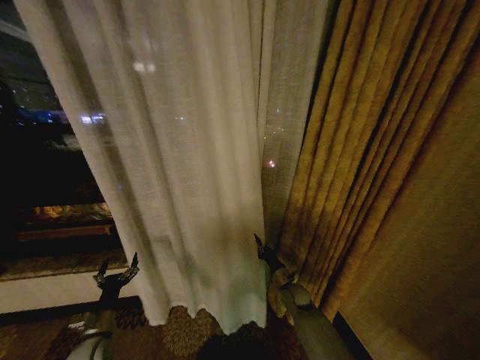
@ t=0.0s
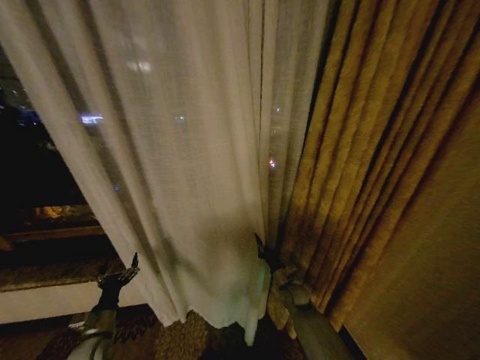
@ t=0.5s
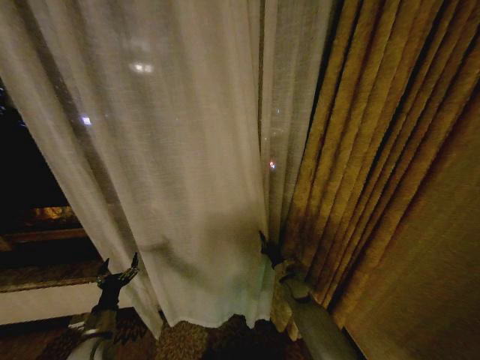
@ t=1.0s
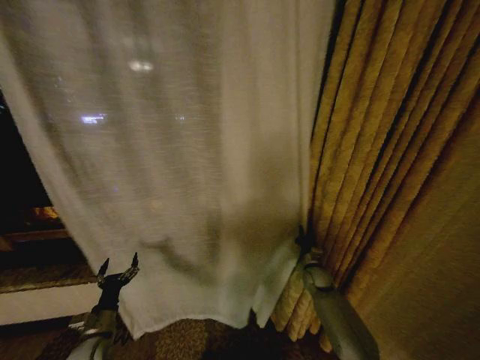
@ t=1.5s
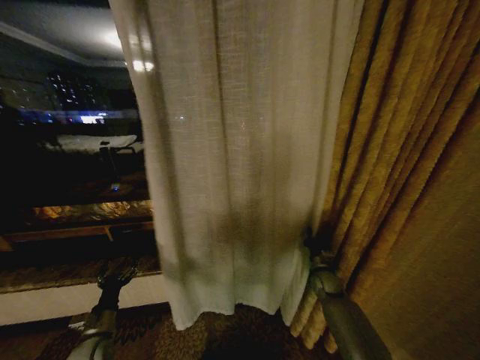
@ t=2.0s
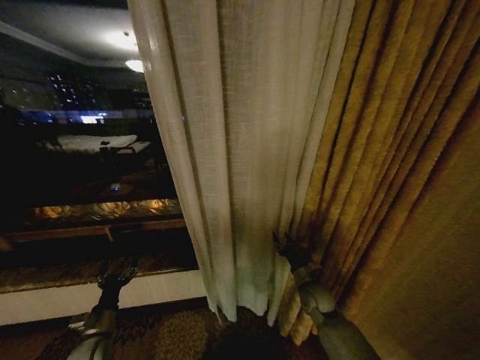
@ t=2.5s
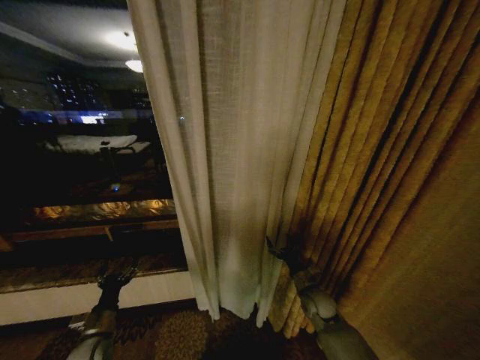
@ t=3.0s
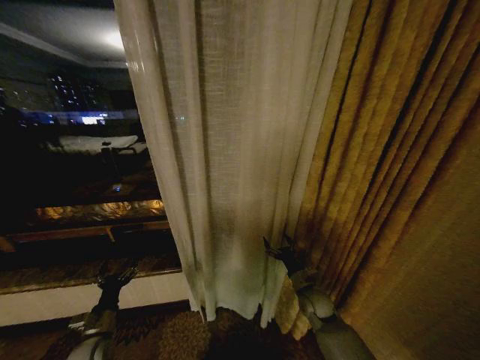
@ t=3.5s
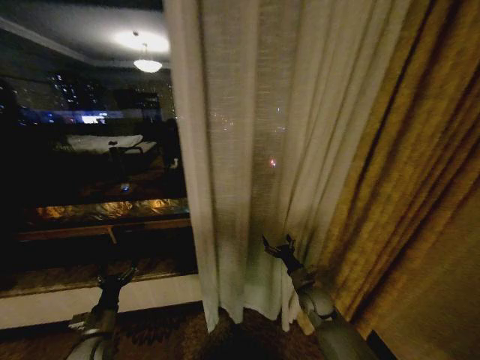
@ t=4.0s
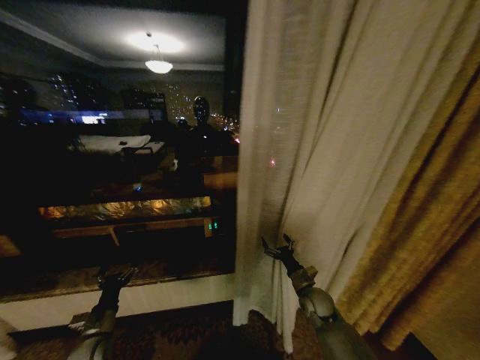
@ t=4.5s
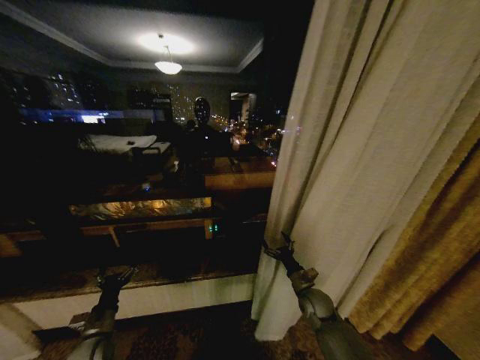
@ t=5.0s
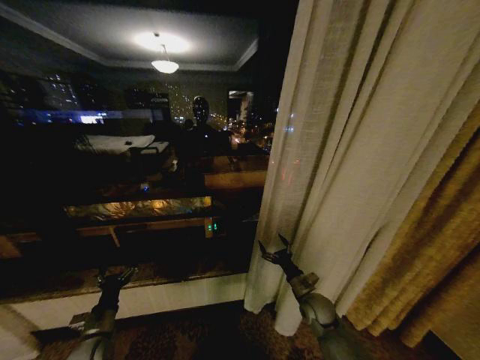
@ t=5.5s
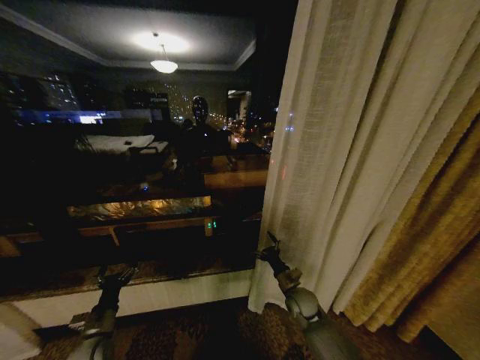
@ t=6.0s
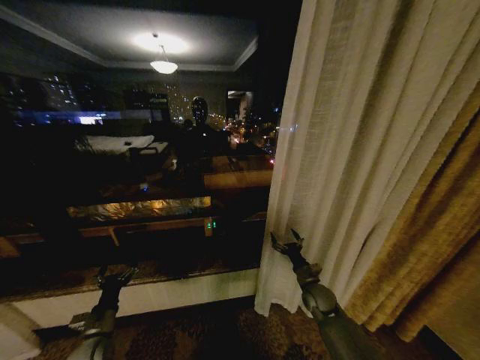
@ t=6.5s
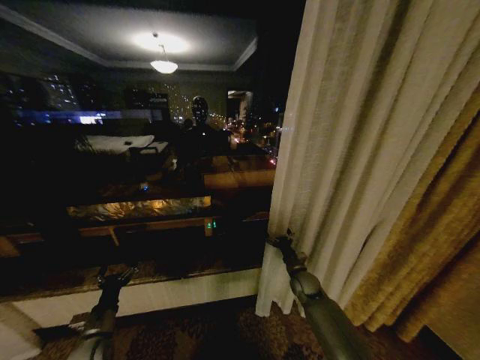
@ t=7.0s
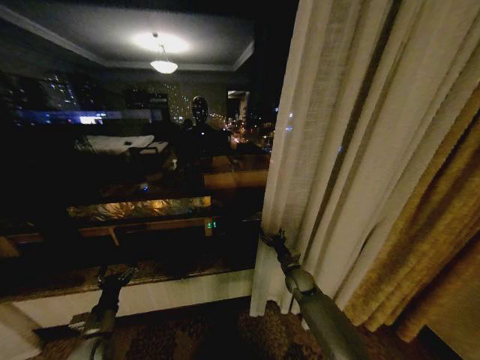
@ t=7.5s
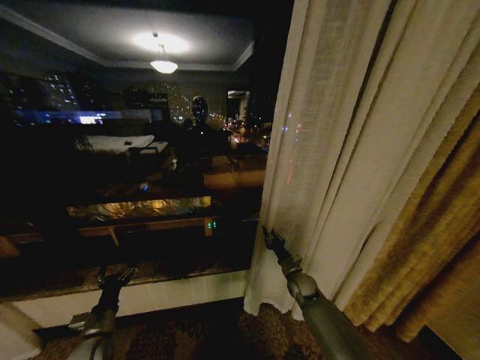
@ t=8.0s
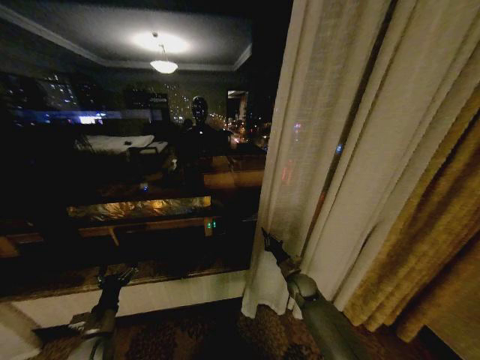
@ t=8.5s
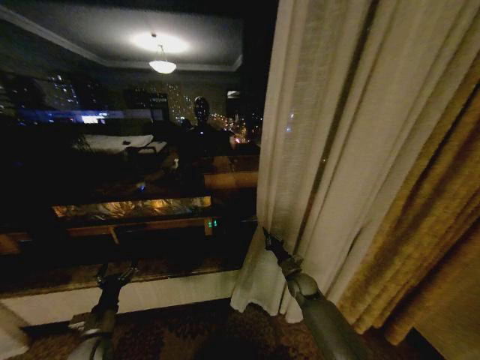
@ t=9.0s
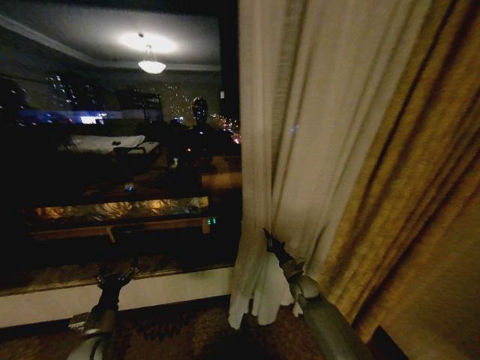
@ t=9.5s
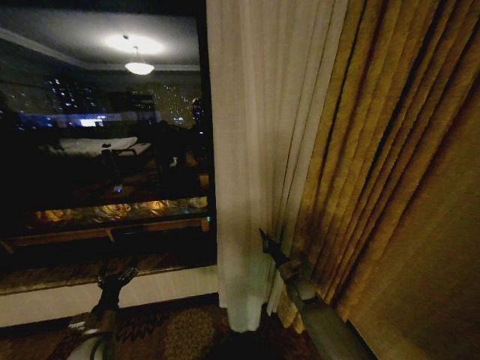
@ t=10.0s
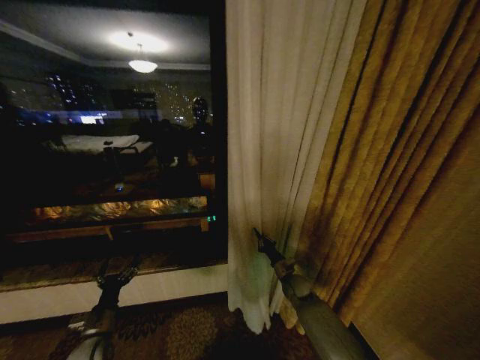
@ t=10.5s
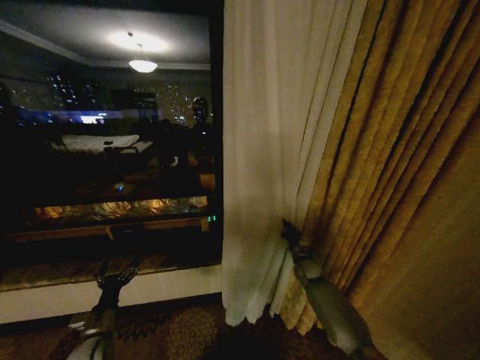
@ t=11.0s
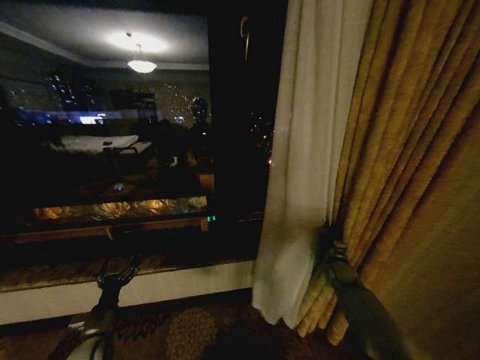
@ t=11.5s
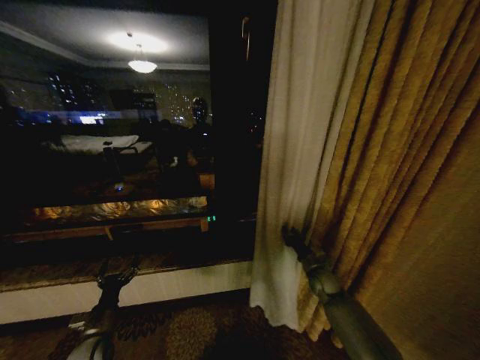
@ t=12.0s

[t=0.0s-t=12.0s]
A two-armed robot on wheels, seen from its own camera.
Task of the whole recording: Open the curtains by pulling them apart, changing their state from closed to fully open.
t=0.0s to t=2.0s: The right gripper goes some 10 cm to the right.
t=2.0s to t=4.0s: The right gripper heads to the left and backward, covering about 10 cm, and opens up.
t=6.0s to t=8.0s: The right gripper travels forward by approximately 5 cm, and closes its fingers.
t=10.0s to t=12.0s: The right gripper shifts approximately 10 cm to the right.

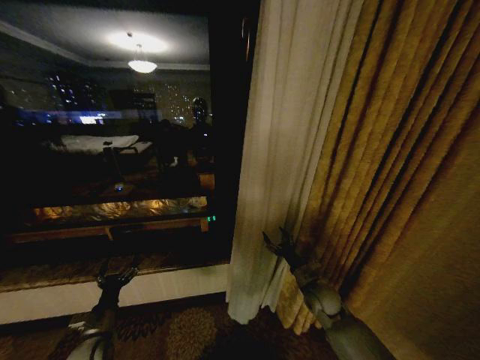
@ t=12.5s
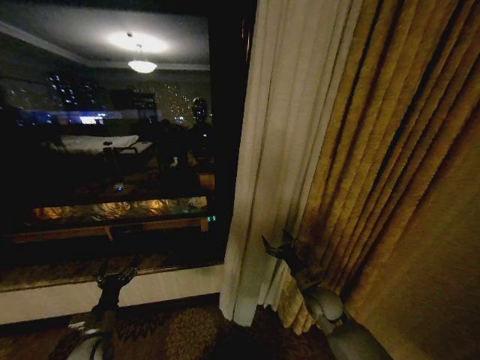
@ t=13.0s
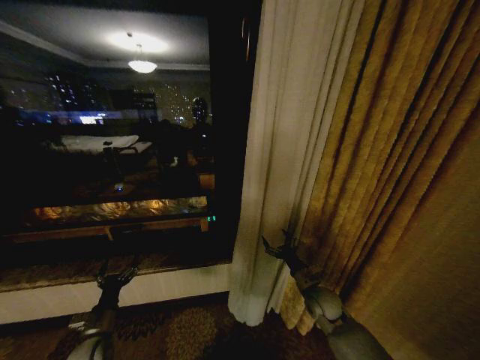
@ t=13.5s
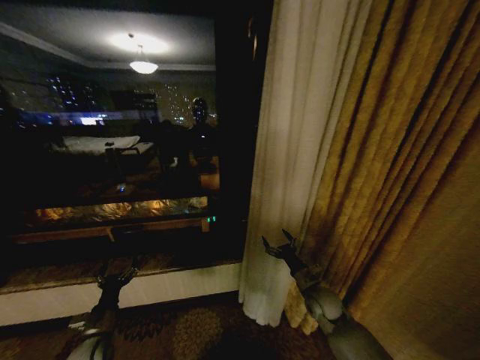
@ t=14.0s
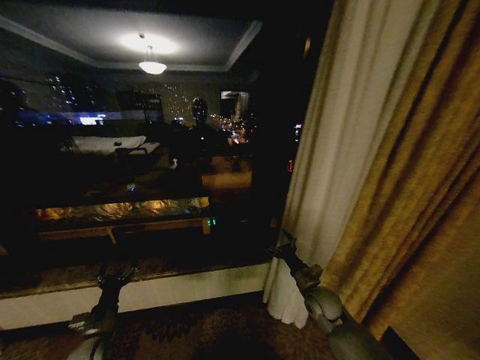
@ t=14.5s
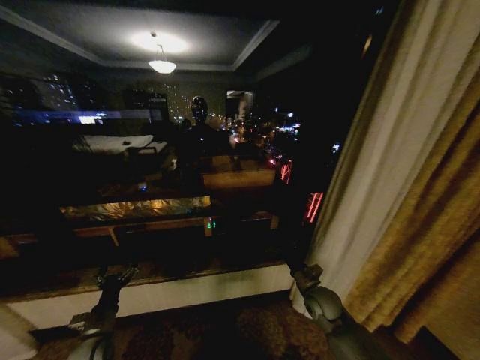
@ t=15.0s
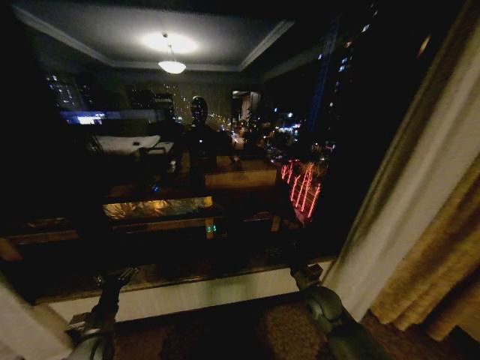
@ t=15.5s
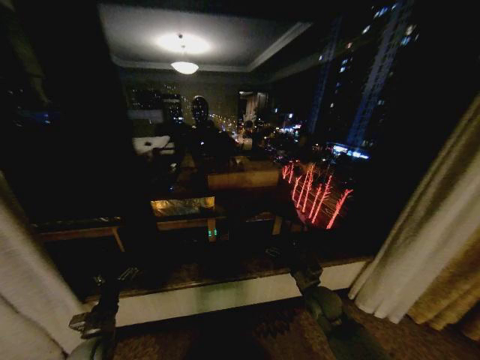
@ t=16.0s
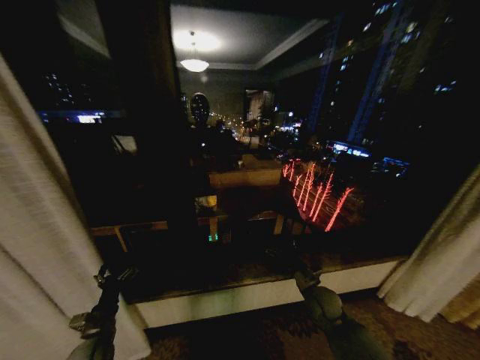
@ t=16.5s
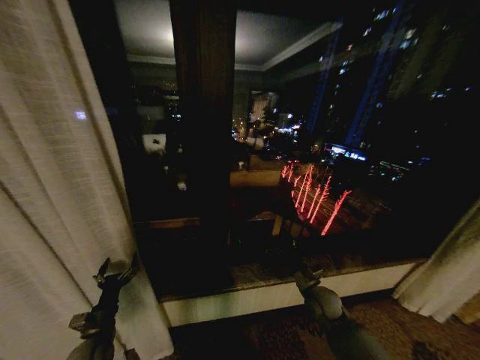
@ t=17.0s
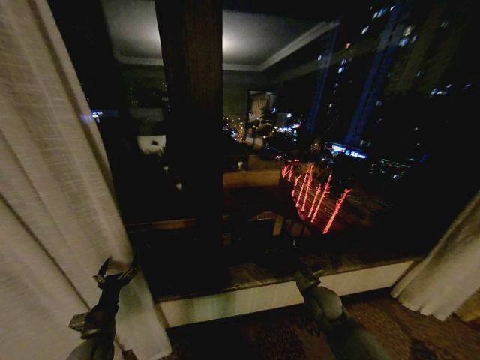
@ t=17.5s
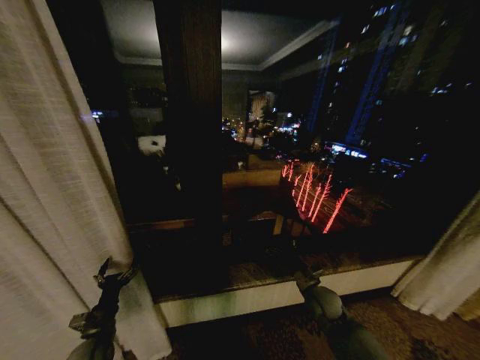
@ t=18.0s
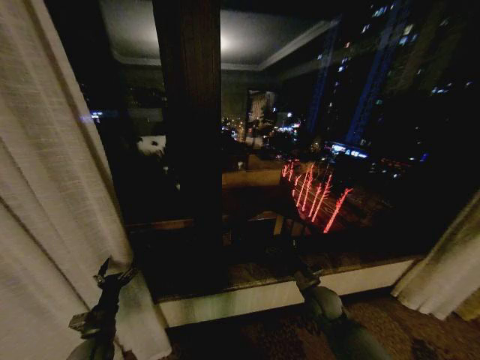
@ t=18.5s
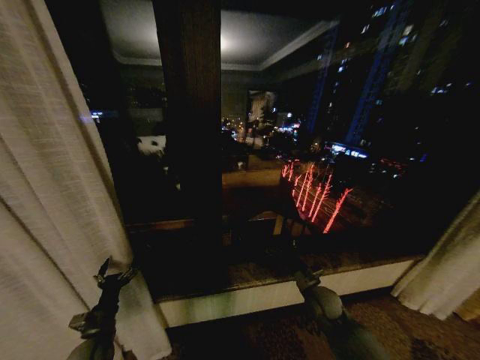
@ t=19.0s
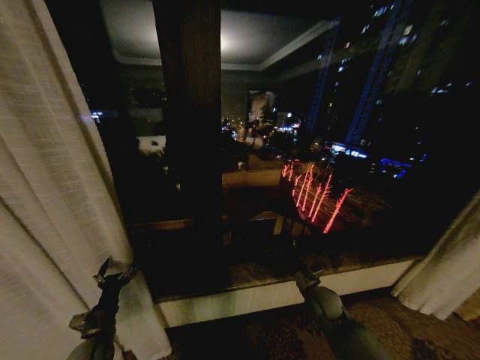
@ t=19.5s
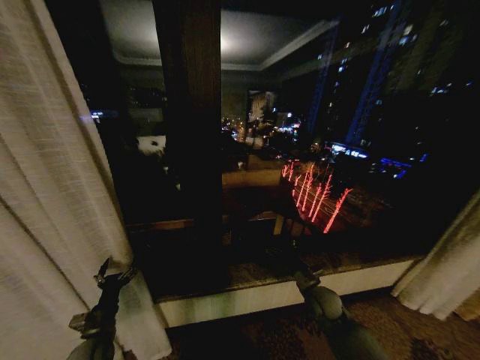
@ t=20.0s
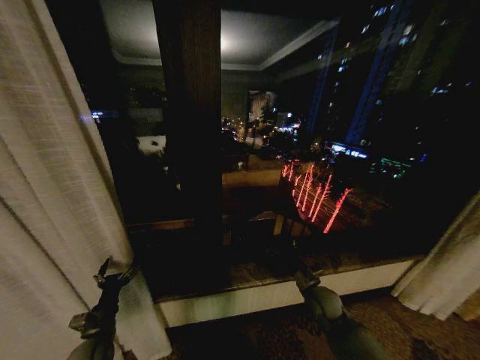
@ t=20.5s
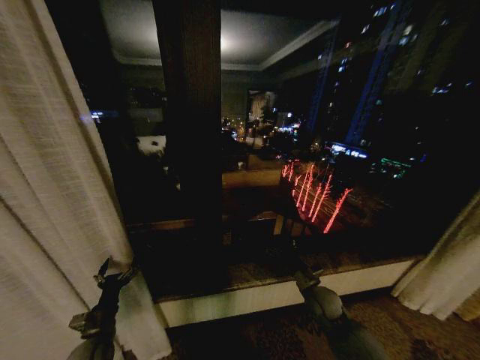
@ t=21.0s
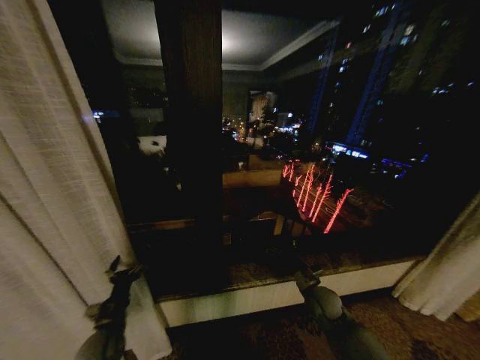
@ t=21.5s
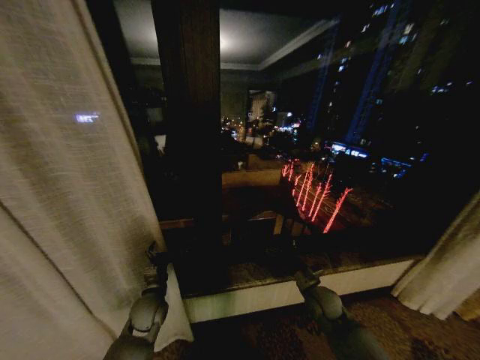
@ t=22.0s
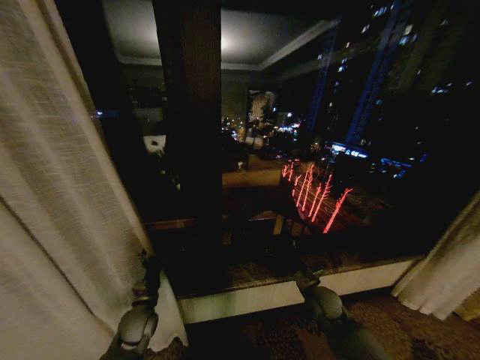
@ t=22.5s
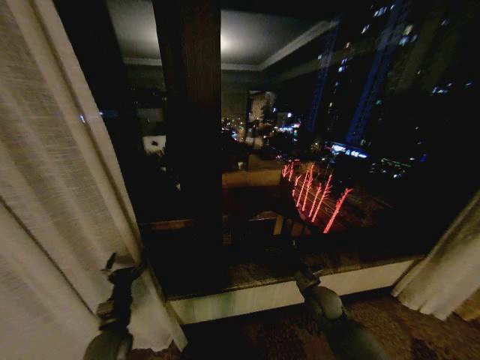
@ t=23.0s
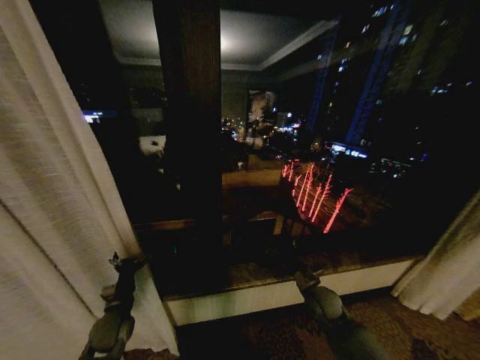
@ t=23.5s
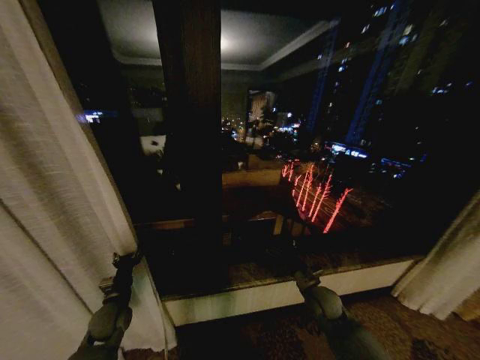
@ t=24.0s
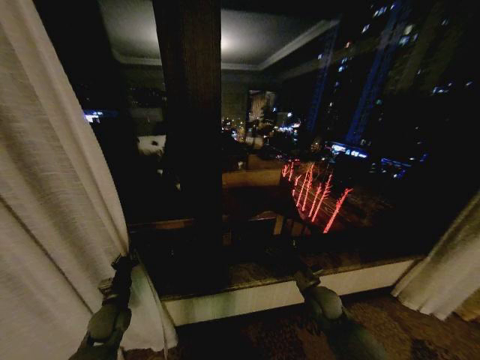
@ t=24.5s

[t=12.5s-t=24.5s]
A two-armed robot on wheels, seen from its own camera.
Task of the whole recording: Open the curtains by pulling them apart, changing their state from closed to fully open.
t=18.5s to t=20.5s: The two grippers keep their place.
t=20.5s to t=22.5s: The left gripper is displaced to the right and forward by roughly 10 cm.
t=22.5s to t=24.5s: The left gripper travels to the left by approximately 10 cm, and closes its fingers.

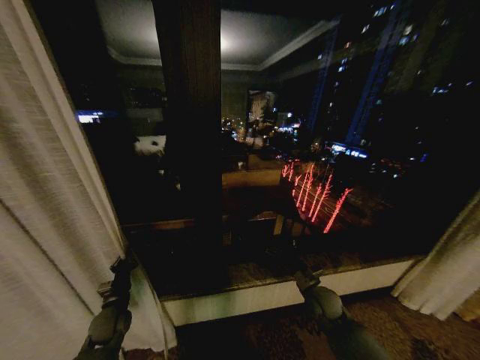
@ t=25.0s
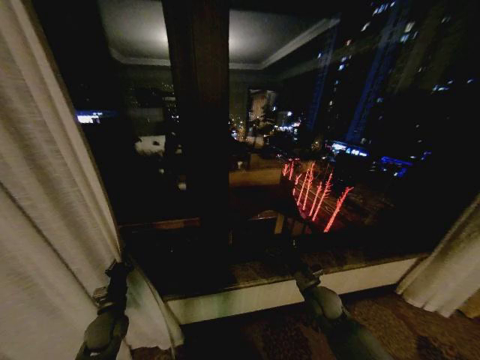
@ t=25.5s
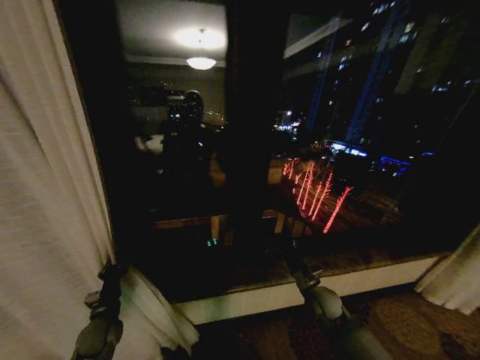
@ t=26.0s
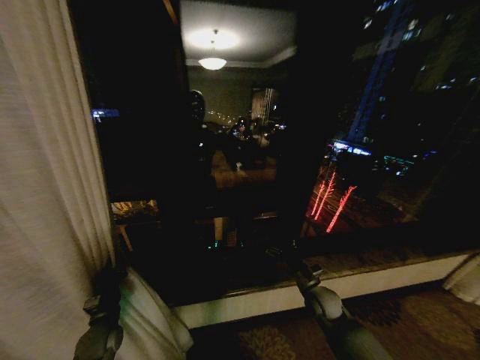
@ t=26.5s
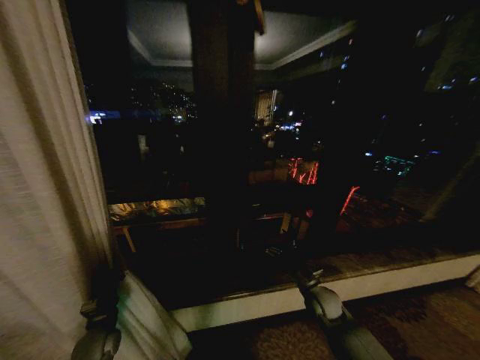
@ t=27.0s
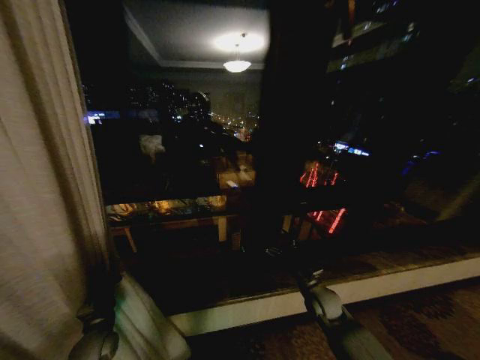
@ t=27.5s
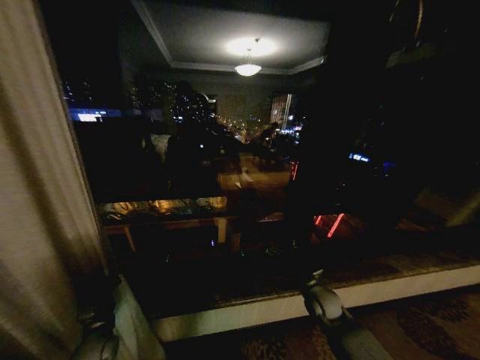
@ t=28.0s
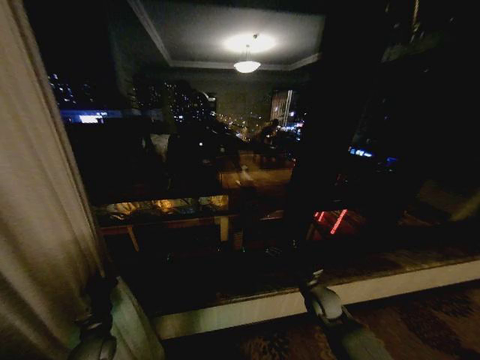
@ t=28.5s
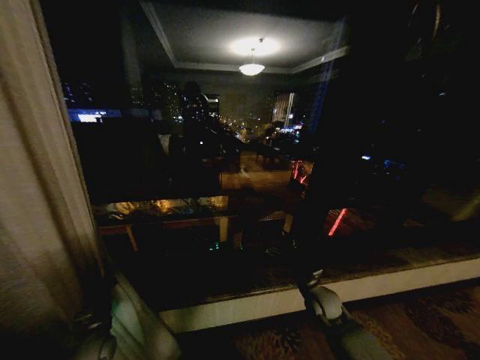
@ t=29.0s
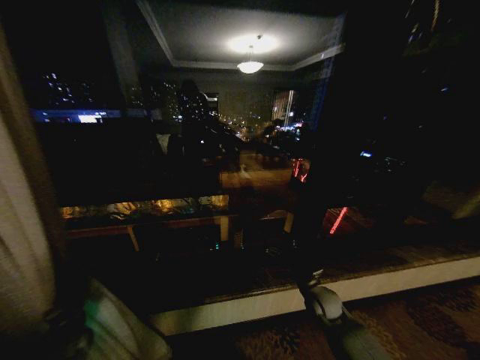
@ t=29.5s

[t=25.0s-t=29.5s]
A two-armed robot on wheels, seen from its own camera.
Task of the whole recording: Open the curtains by pulling them apart, changing their state from closed to fully open.
t=27.0s to t=29.5s: The left gripper heads to the left, covering approximately 10 cm.
